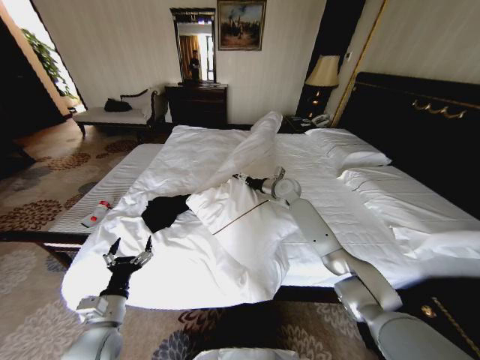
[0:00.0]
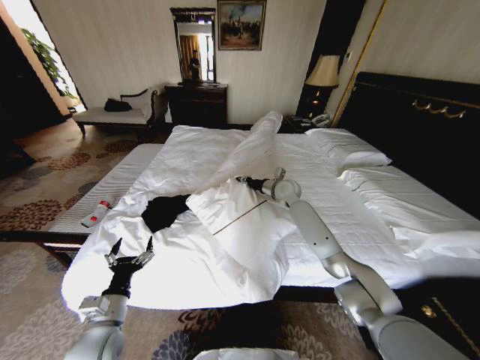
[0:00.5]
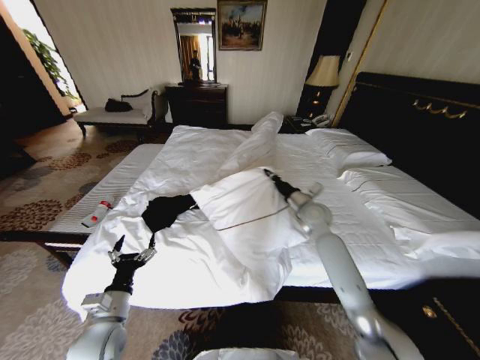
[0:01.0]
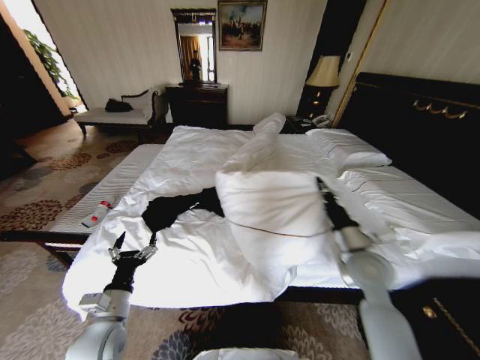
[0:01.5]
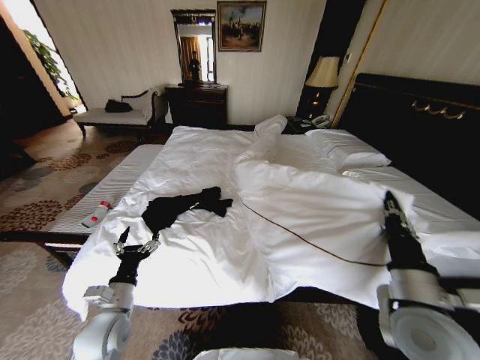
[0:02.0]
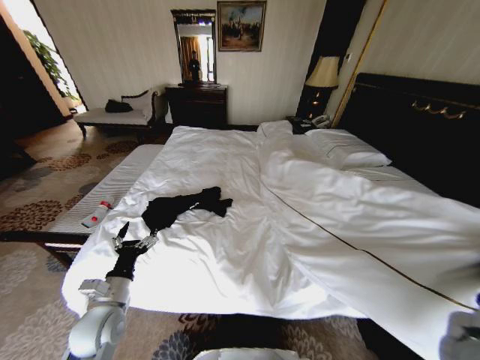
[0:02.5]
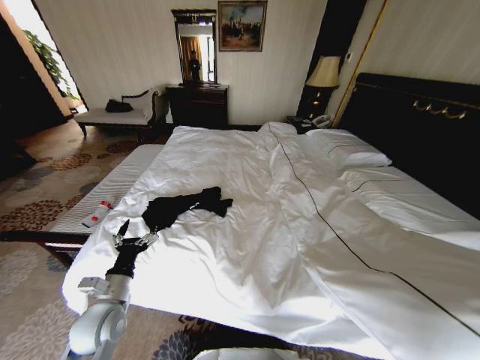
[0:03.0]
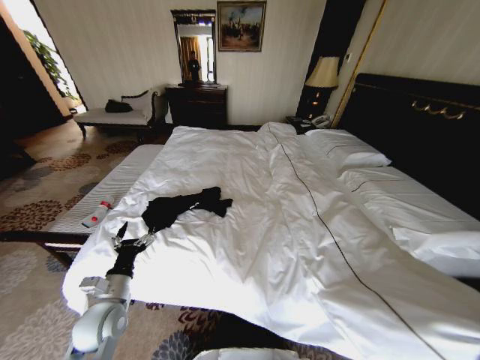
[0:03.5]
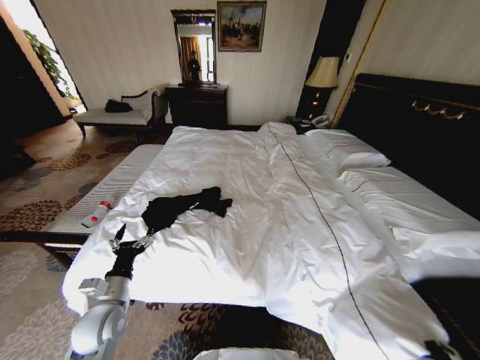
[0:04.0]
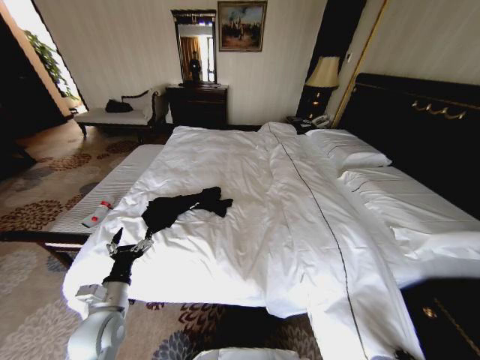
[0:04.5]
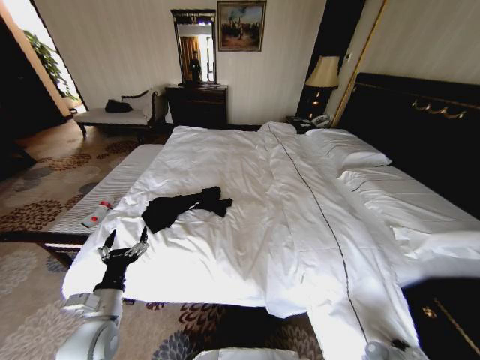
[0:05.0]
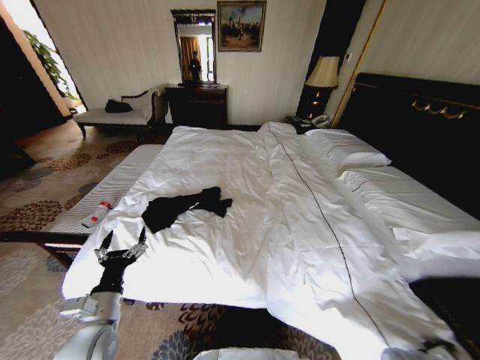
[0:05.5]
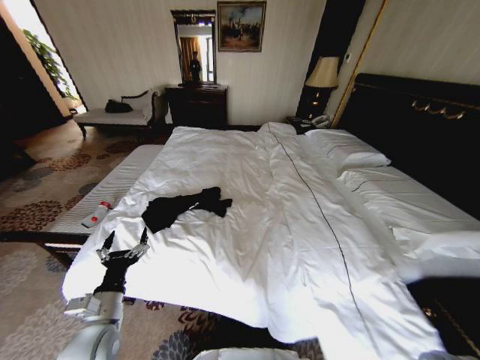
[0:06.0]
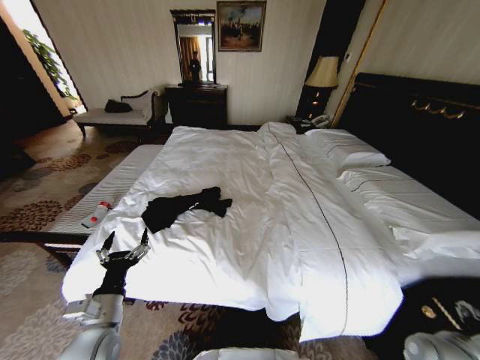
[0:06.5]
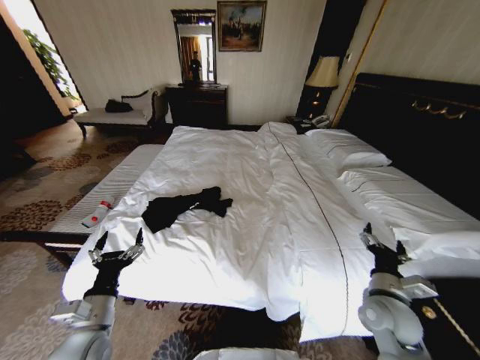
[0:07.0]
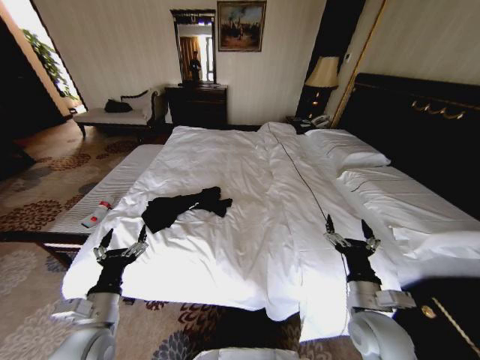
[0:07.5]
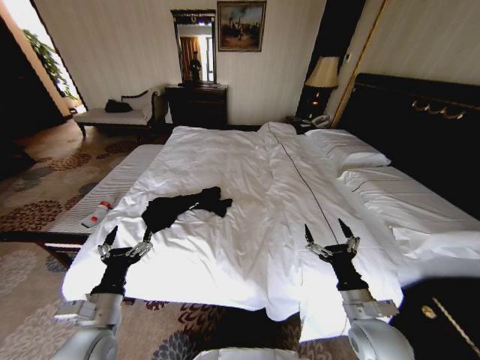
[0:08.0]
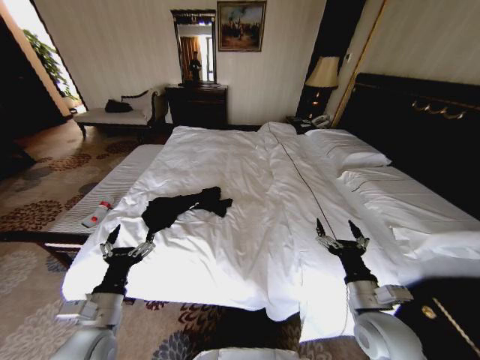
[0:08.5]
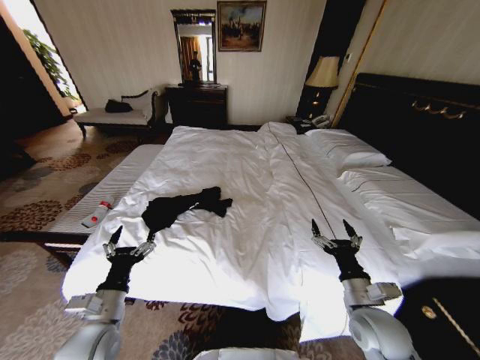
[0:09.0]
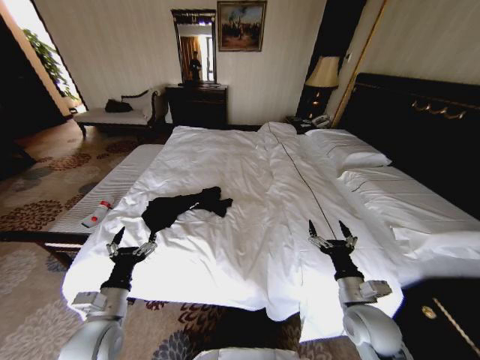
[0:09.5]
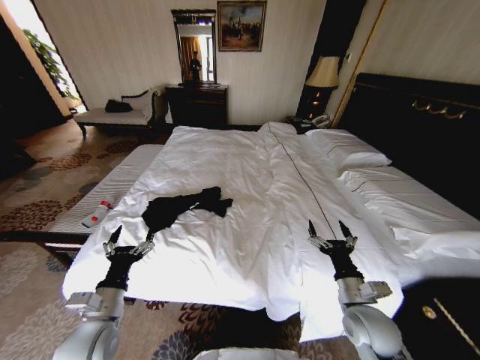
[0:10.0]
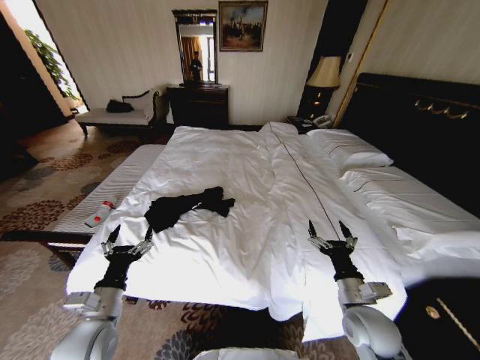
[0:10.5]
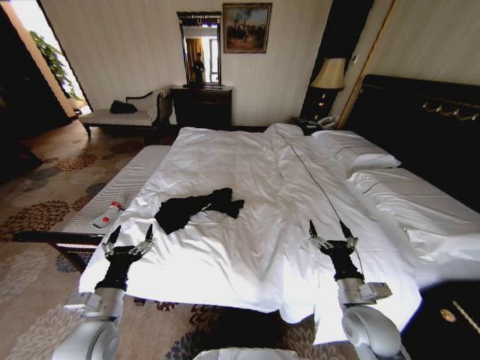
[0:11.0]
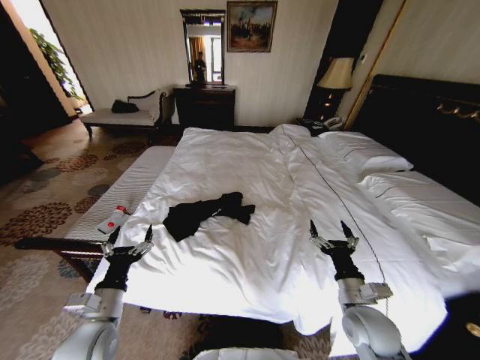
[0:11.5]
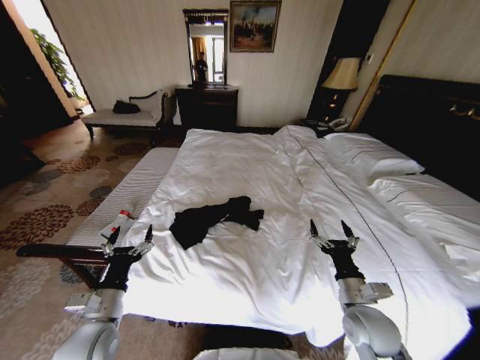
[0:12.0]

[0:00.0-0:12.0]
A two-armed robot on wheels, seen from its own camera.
Task of the whole recording: Fold the clothes on the bed.
0:00.0 to 0:02.0: The right gripper is displaced backward by some 40 cm, and closes up.
0:02.0 to 0:04.0: The right gripper moves downward and to the right, about 20 cm.
0:04.0 to 0:06.0: The right gripper heads to the right, covering roughly 5 cm, reaches approximately 20 cm downward, then returns, and opens up.
0:06.0 to 0:08.0: The right gripper moves to the left, about 15 cm.
0:08.0 to 0:10.0: There are only small adjustments of the grippers.

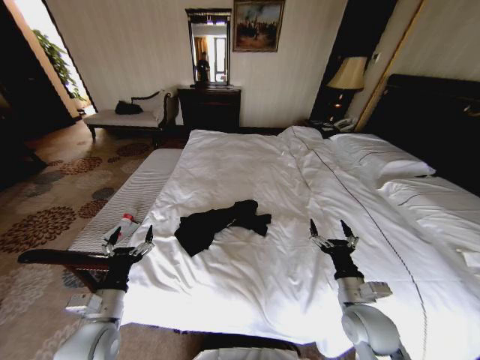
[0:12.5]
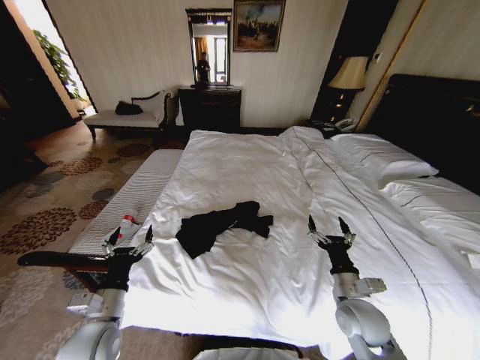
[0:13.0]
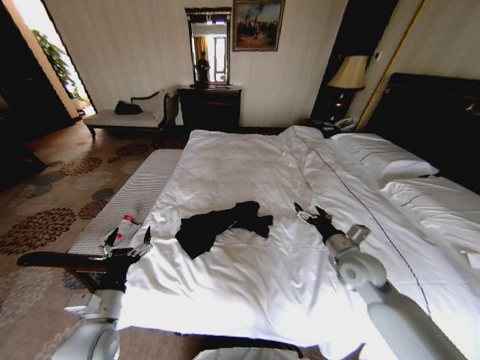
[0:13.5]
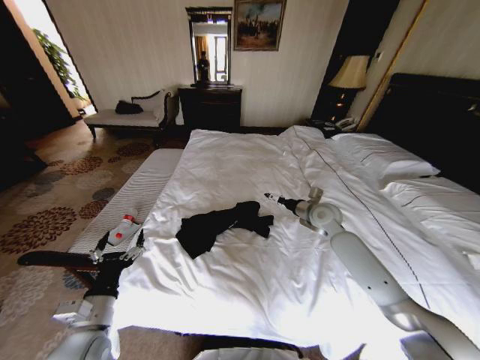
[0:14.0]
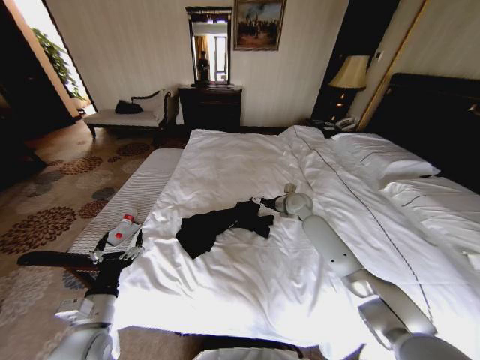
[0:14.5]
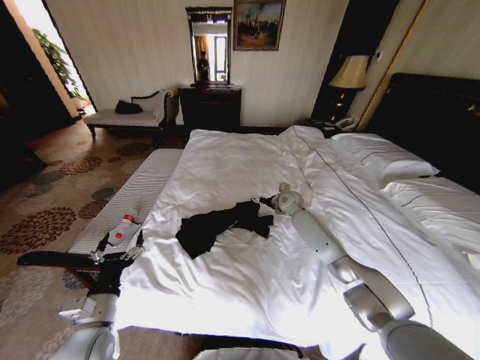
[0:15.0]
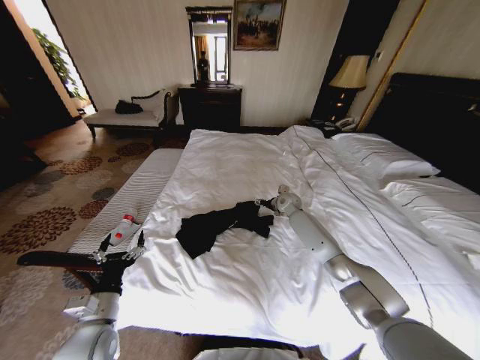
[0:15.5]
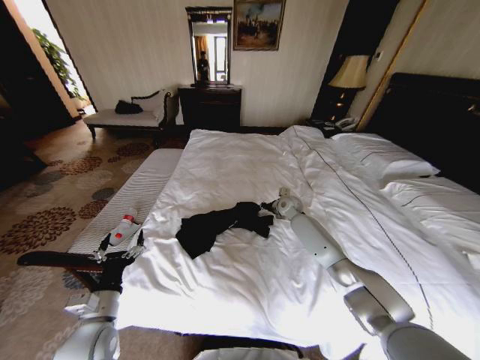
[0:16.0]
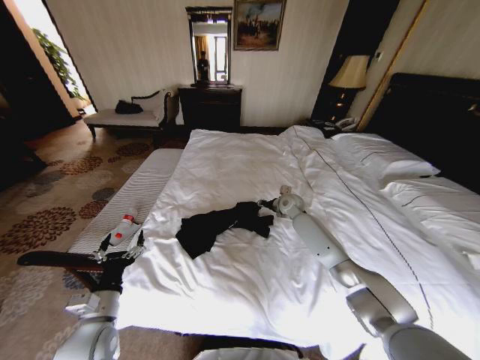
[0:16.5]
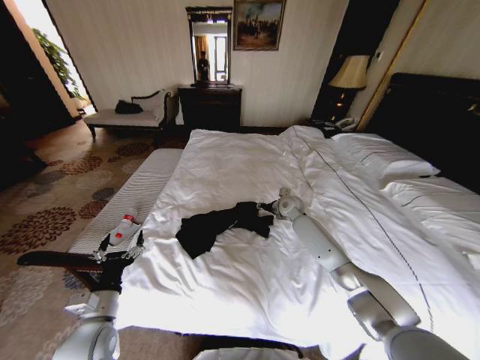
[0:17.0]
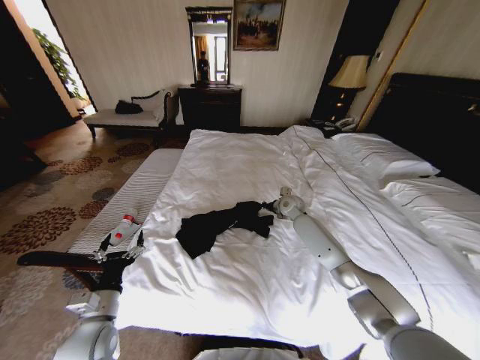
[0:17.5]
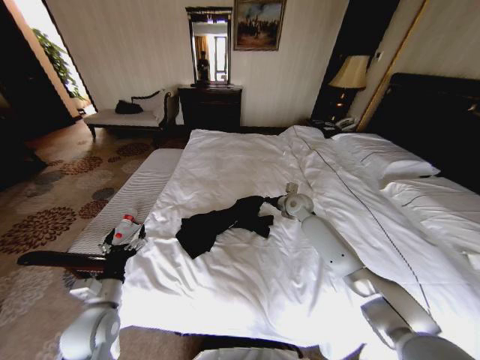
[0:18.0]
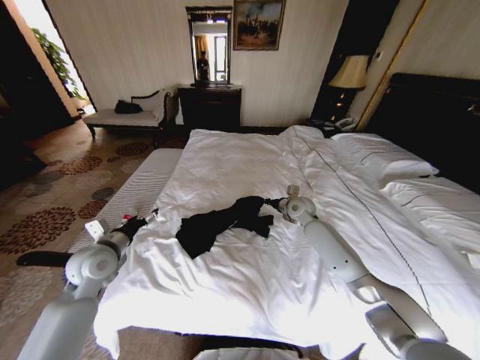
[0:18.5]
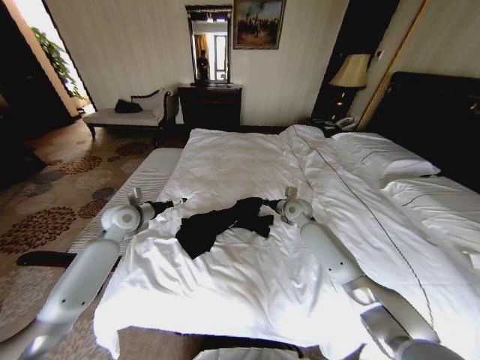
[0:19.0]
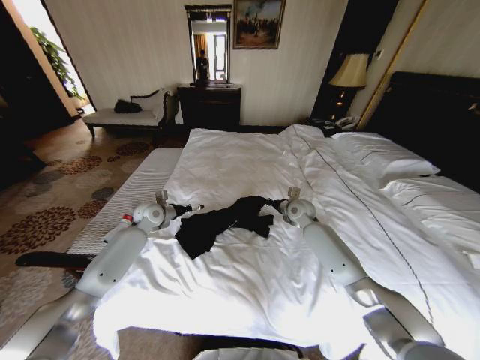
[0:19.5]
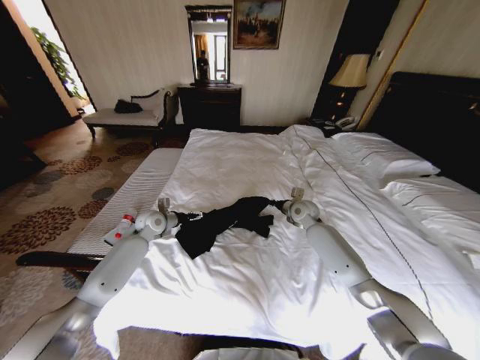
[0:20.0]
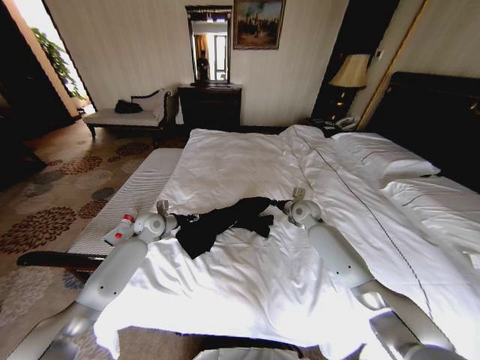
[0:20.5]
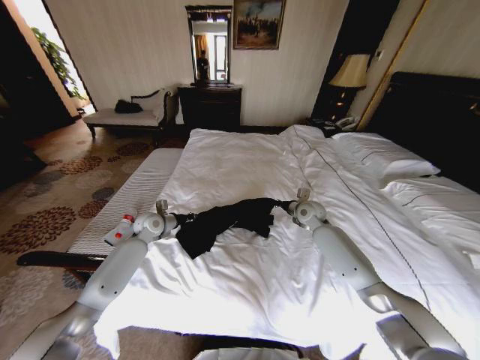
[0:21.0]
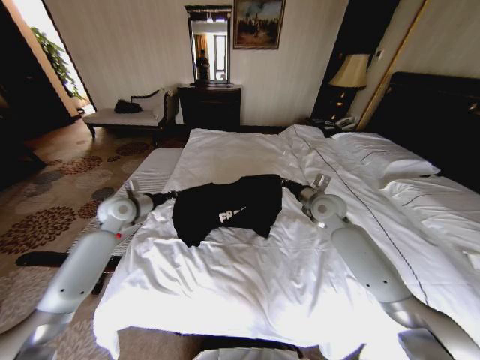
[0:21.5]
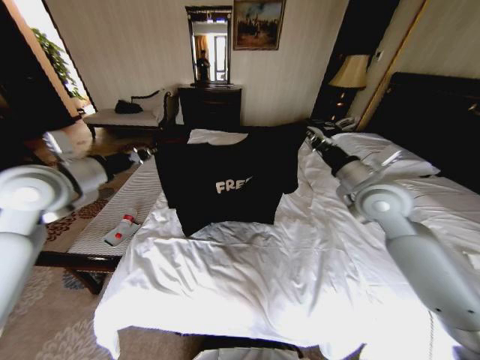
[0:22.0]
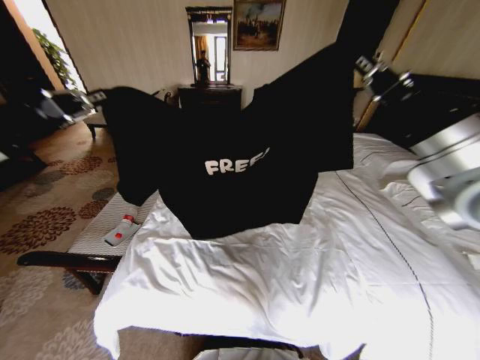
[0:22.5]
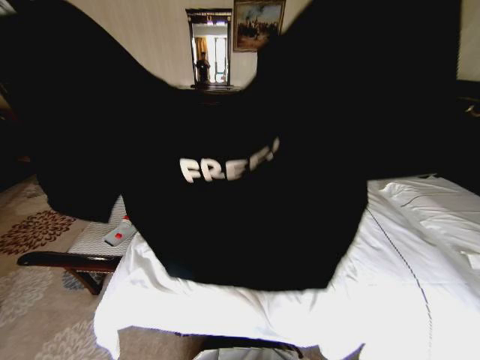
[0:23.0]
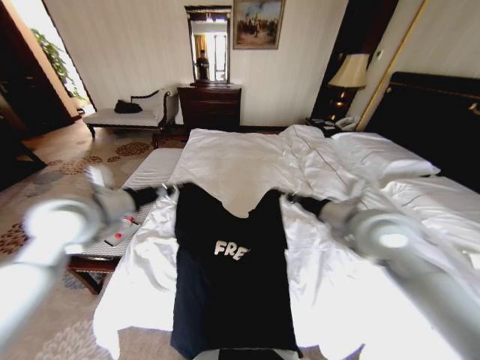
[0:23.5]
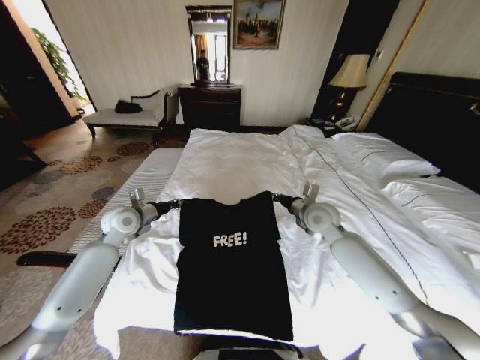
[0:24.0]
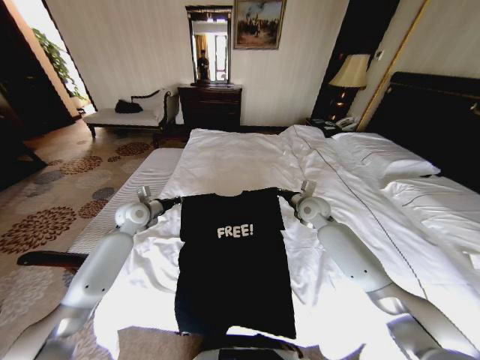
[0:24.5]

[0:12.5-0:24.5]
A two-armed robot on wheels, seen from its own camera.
Task of the whole recording: Fold the clothes on the bed.
0:12.5 to 0:14.5: The right gripper goes roughly 35 cm forward.
0:14.5 to 0:16.5: The right gripper closes its fingers.
0:16.5 to 0:18.5: The left gripper shifts approximately 15 cm forward and upward, while the right gripper shifts by approximately 5 cm, and closes its fingers.
0:18.5 to 0:20.5: The left gripper heads forward, covering some 15 cm, and closes its fingers.
0:20.5 to 0:22.5: Both grippers travel together upward and backward, some 40 cm. The left gripper closes.
0:22.5 to 0:24.5: Both grippers travel together downward and forward, approximately 35 cm.

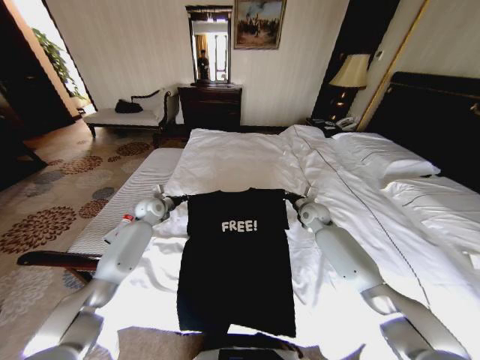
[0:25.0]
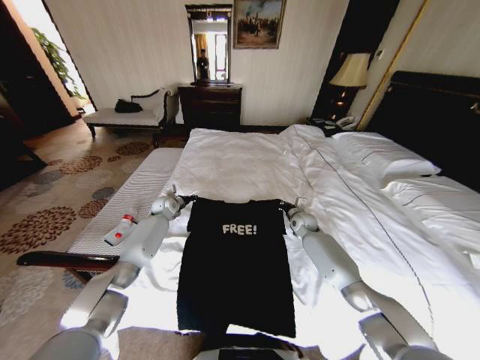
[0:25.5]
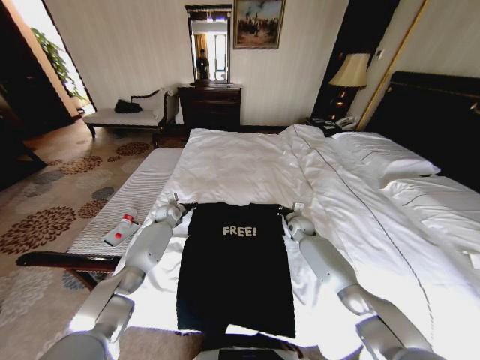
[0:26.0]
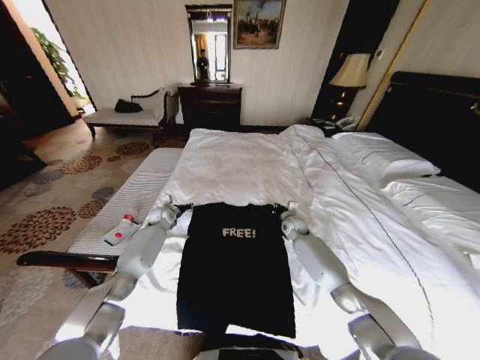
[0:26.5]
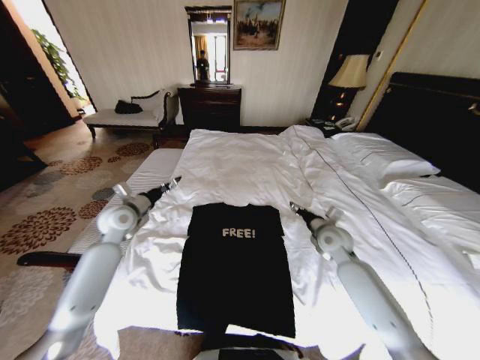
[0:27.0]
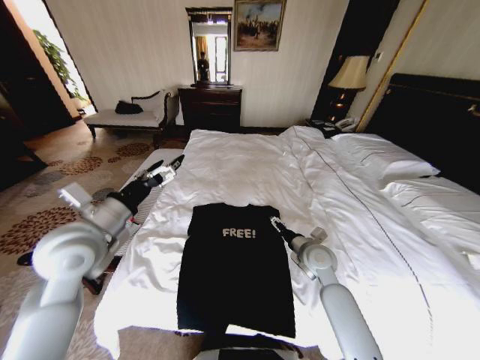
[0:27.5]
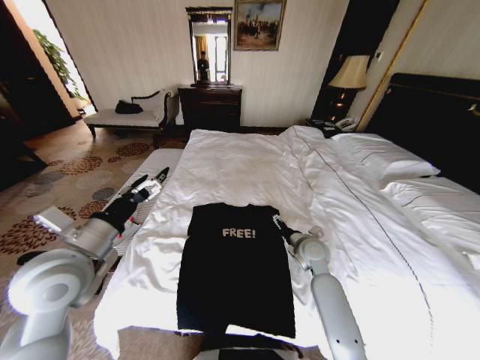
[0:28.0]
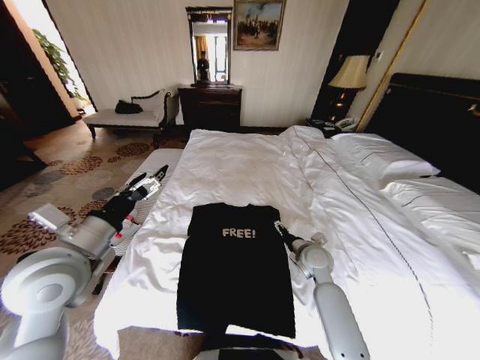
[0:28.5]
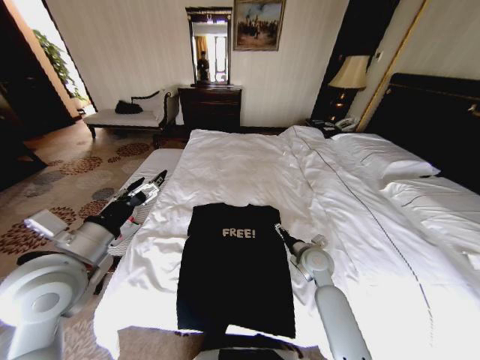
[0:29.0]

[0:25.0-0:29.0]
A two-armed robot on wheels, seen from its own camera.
Task of the whole recording: Fold the clothes on the bed.
0:25.0 to 0:27.0: The left gripper shifts some 10 cm backward and upward, and opens its fingers, while the right gripper goes roughly 10 cm backward, and opens.
0:27.0 to 0:29.0: The right gripper is displaced to the left and backward by about 10 cm, and opens. Meanwhile the left gripper is displaced backward and upward by roughly 25 cm.
